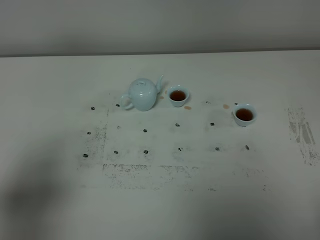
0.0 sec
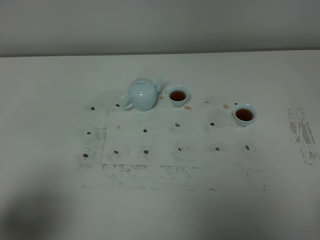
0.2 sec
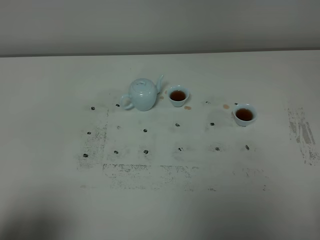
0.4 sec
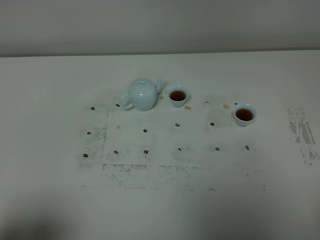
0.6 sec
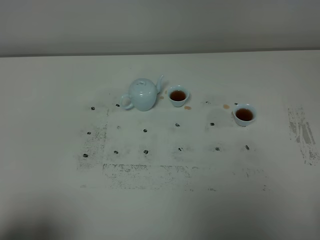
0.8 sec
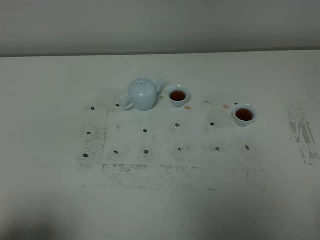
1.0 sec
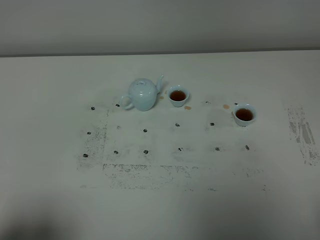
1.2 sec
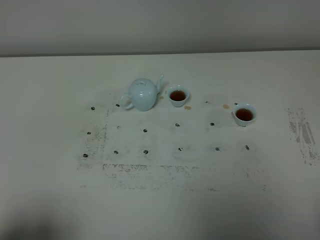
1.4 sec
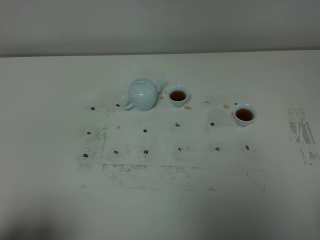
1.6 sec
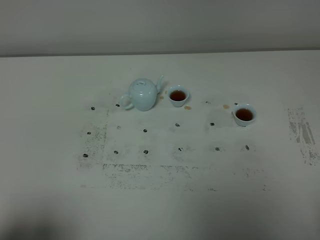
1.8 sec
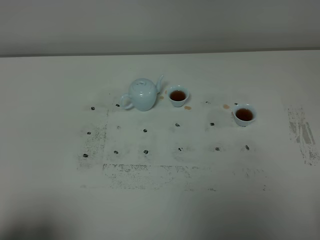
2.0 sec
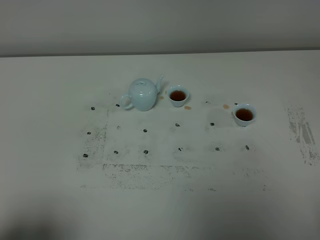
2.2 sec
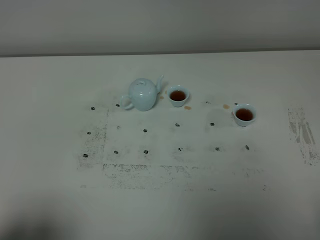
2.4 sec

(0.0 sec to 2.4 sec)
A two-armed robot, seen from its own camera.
Task of the whole recording: grasp the blue porcelain teapot and pour the tea into the two blue porcelain teacups one by one, put the blue porcelain teapot back in its original place.
0.0 sec - 1.2 sec: The left gripper travels backward by about 10 cm.
1.2 sec - 2.4 sec: Neither gripper changes place.
